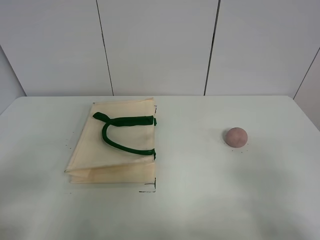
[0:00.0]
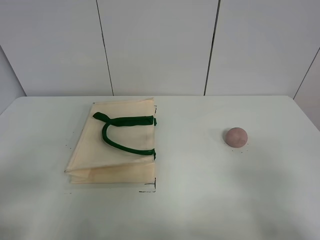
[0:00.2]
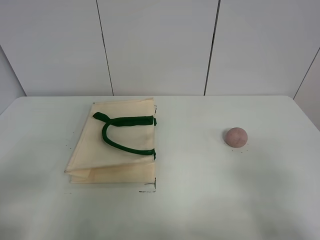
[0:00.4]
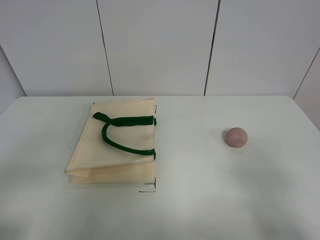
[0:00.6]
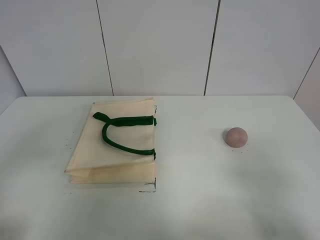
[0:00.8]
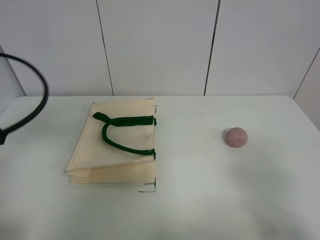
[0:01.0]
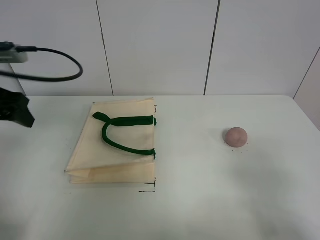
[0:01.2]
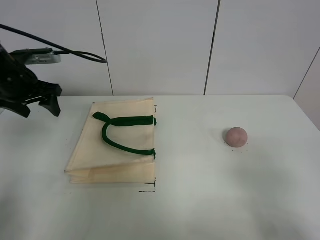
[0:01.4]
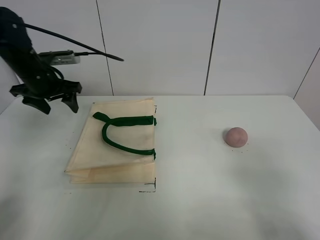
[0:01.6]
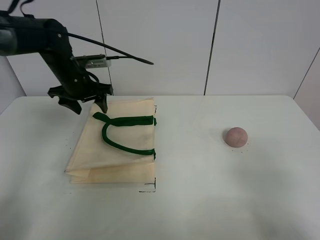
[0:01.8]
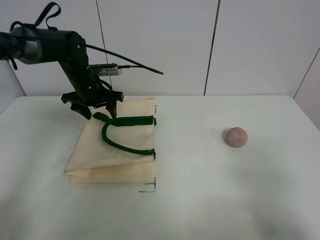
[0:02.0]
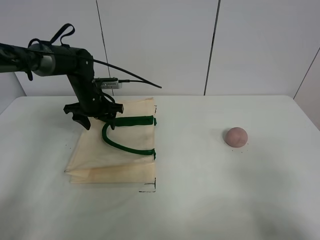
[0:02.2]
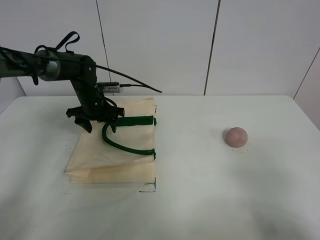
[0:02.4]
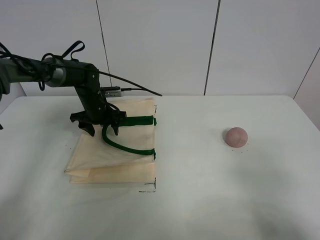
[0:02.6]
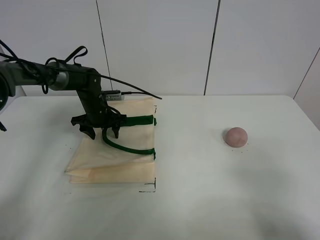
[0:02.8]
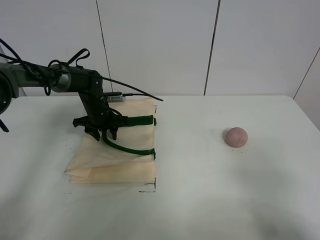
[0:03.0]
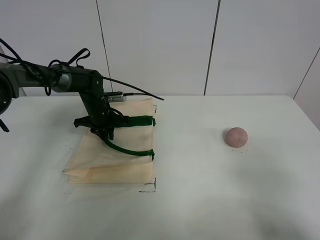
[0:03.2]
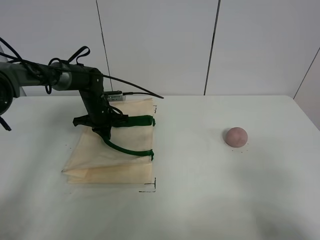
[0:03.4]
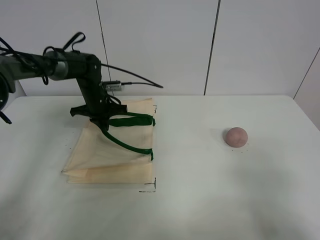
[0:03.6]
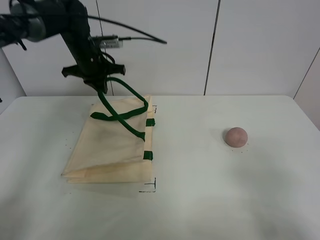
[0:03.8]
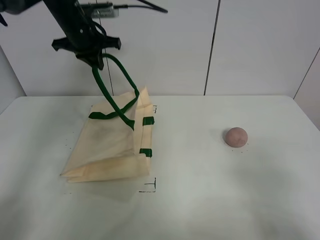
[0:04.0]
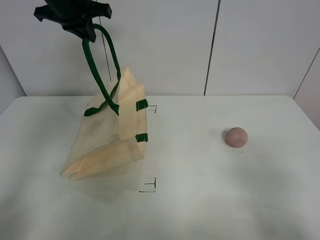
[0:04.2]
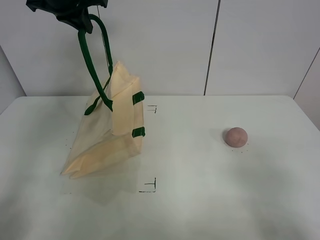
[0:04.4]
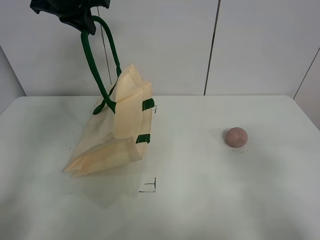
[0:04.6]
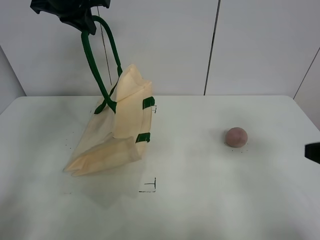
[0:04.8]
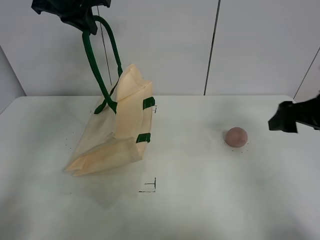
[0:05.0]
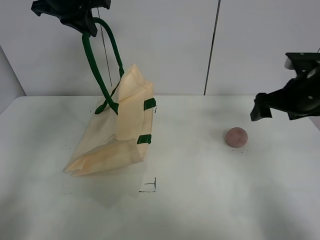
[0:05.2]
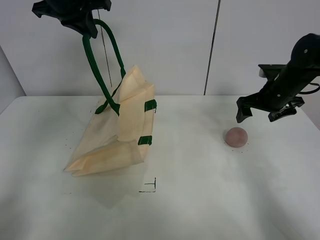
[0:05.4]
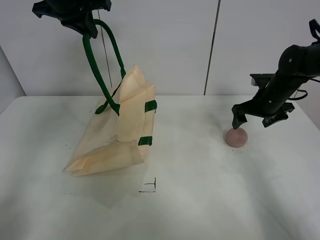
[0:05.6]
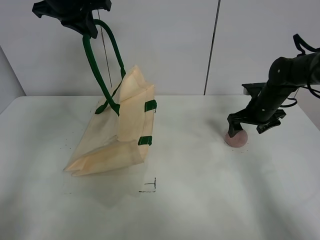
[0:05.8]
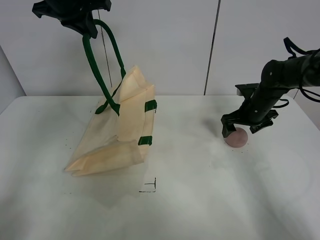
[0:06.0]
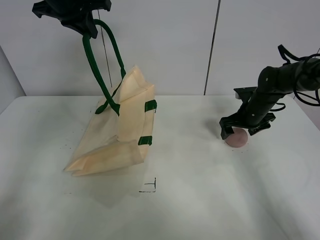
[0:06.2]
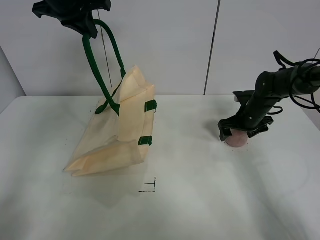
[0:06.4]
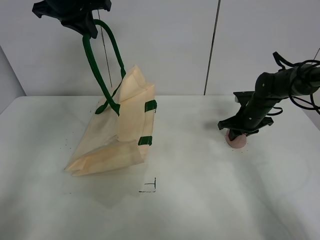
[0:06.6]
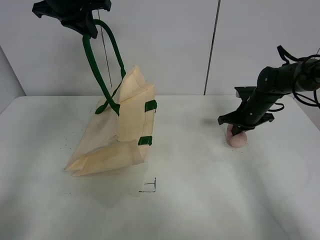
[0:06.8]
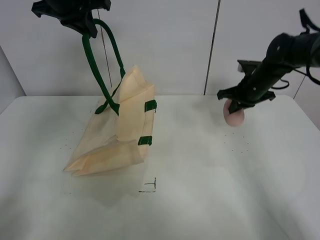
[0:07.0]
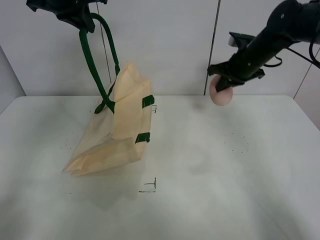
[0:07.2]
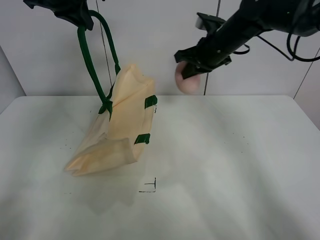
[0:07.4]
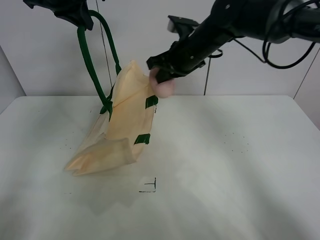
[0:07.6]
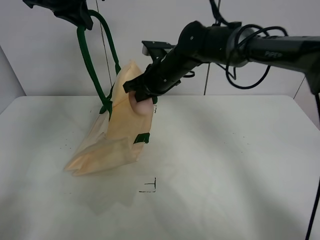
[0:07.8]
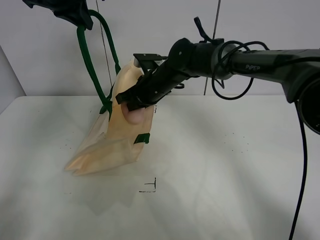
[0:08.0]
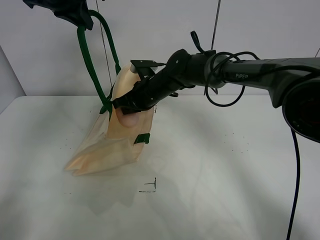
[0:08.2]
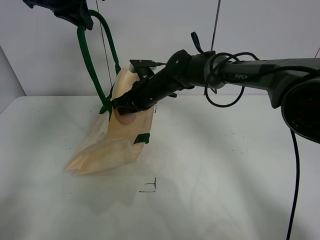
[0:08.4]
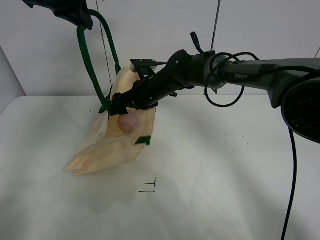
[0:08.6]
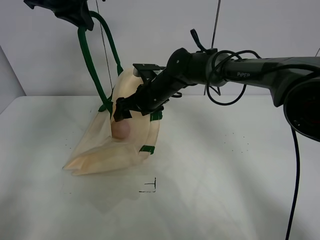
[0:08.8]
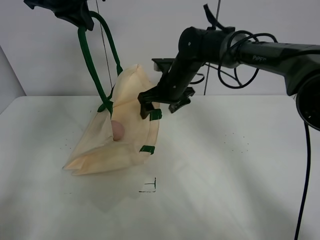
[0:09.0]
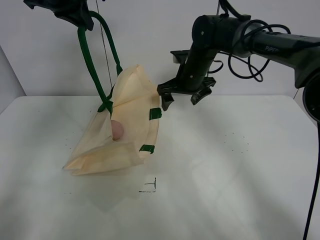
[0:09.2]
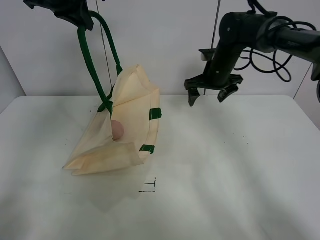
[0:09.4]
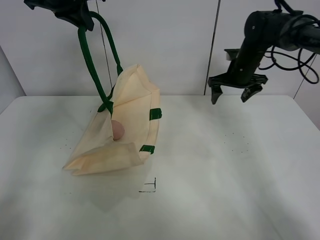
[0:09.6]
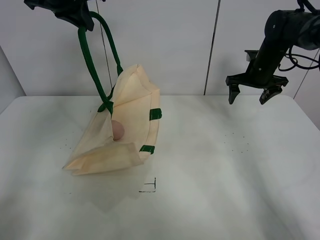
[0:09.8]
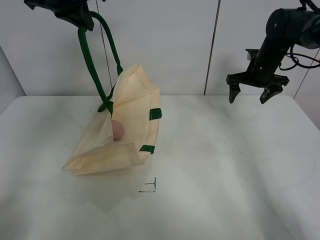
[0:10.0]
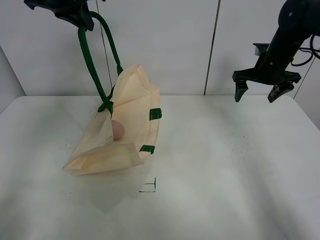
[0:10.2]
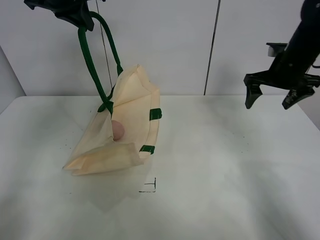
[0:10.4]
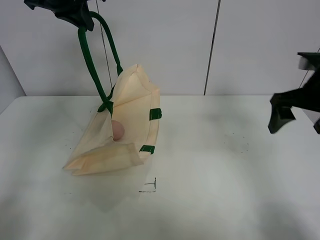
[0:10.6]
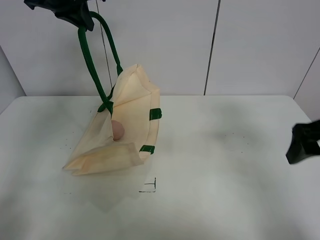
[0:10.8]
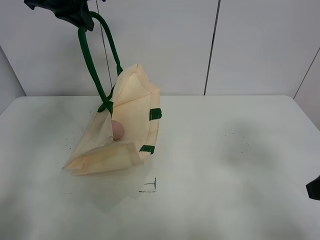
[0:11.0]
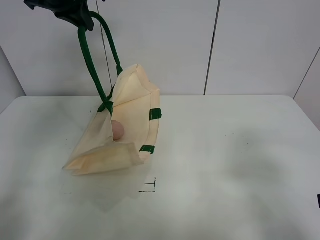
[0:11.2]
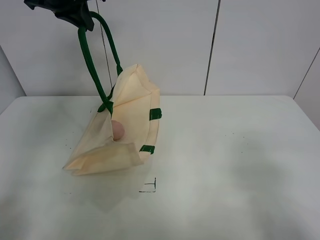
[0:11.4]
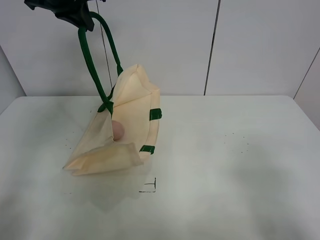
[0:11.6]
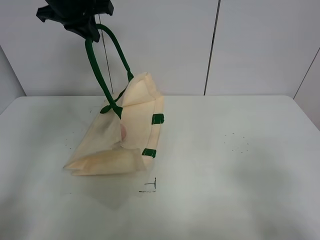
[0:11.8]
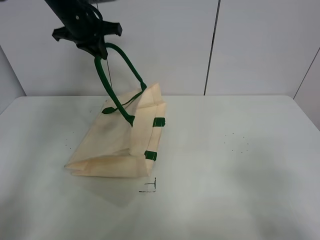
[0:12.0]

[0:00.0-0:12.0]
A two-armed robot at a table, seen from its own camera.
Task of the whole recording: open the white linen bag and put the peach in the bag.
Step, 0:00.0 to 0:04.2: Lift the handbag with left gripper.
Step, 0:04.4 to 0:06.8: Grasp the peach with right gripper.
Step, 0:07.0 to 0:09.0: Place the peach in the handbag with right gripper.
0:00.0 to 0:01.6: The left gripper travels forward by approximately 40 cm.
0:01.6 to 0:03.0: The left gripper is displaced downward and to the right by approximately 15 cm, and closes.
0:03.0 to 0:04.4: The left gripper goes roughly 30 cm upward, and closes.
0:04.4 to 0:06.0: The right gripper moves forward, roughly 40 cm.
0:06.0 to 0:07.6: The right gripper moves to the left and upward, about 25 cm, and closes its fingers.
0:07.6 to 0:09.0: The right gripper travels downward by about 5 cm, and opens.
0:09.0 to 0:10.4: The right gripper goes some 20 cm to the right.
0:10.4 to 0:12.0: The right gripper is displaced backward by approximately 35 cm. The left gripper heads downward, covering some 10 cm.

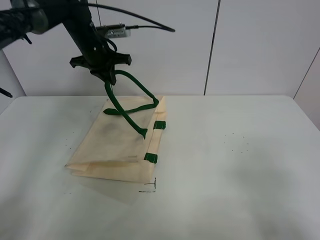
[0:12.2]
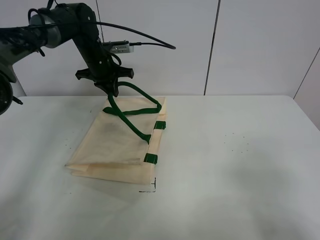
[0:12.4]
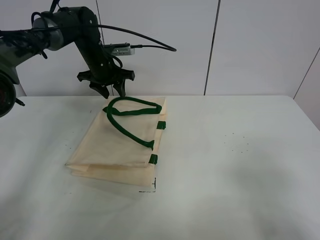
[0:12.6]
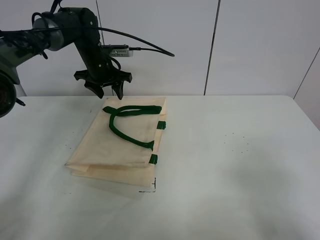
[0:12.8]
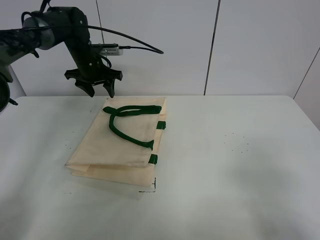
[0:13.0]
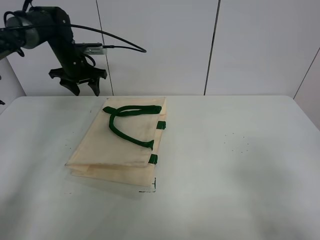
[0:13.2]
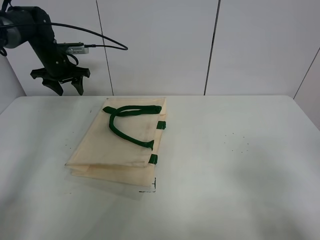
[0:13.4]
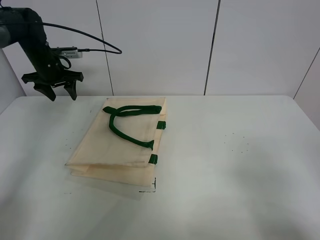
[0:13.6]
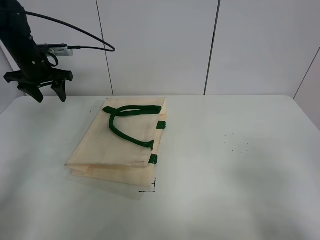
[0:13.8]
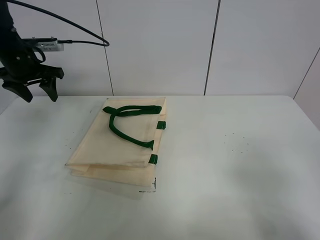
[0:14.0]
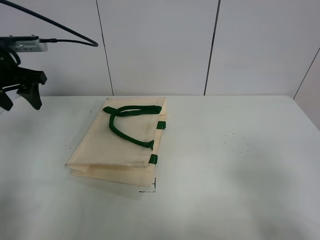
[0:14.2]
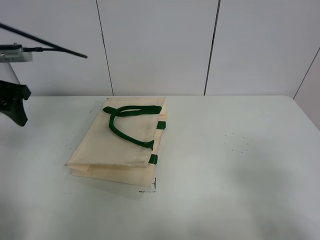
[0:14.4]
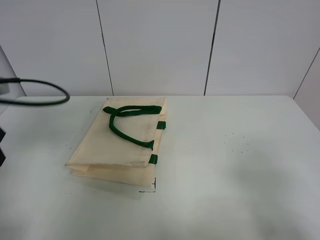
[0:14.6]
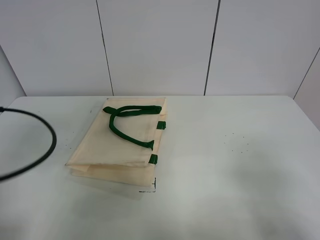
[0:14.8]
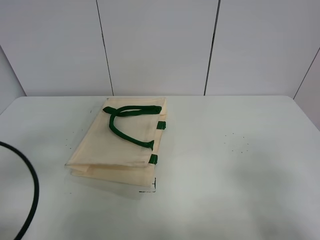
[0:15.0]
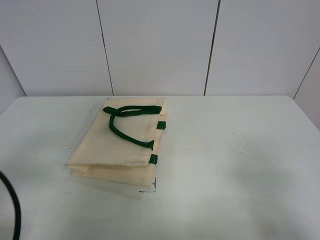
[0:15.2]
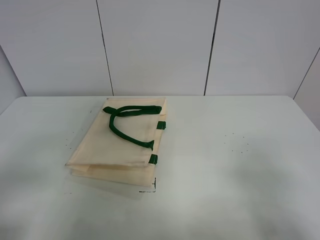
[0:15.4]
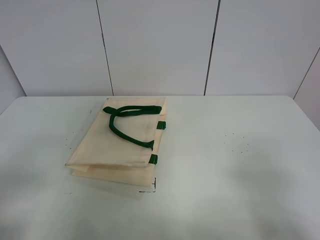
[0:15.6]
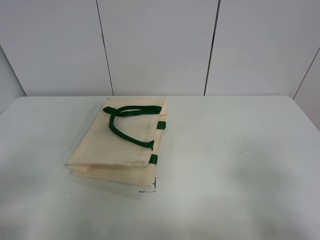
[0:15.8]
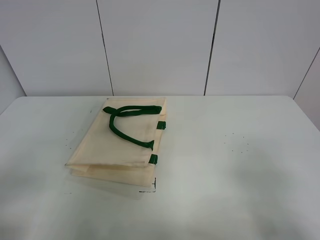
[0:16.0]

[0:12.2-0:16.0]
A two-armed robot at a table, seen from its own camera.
Task of the whole recording: open the white linen bag and put the peach in the bag.
0:12.2 to 0:13.4: The left gripper goes approximately 15 cm to the left, and opens up.
0:13.4 to 0:14.8: The left gripper moves backward, some 40 cm.
0:14.8 to 0:16.0: The left gripper heads backward, covering approximately 10 cm.

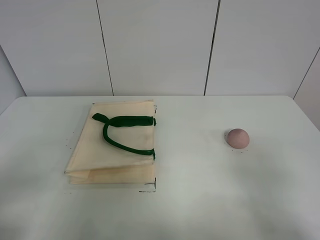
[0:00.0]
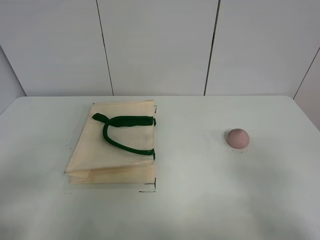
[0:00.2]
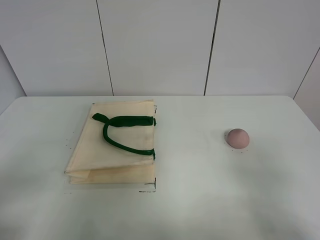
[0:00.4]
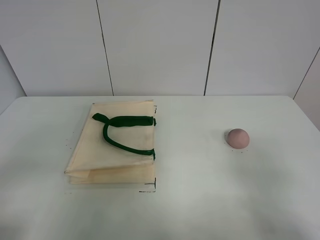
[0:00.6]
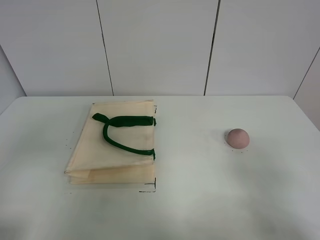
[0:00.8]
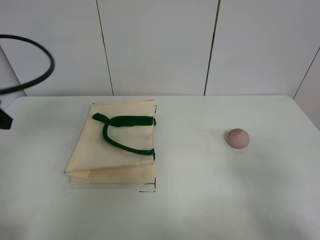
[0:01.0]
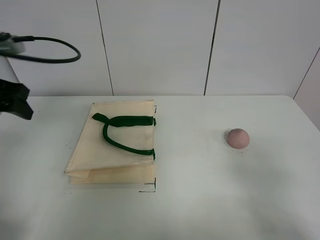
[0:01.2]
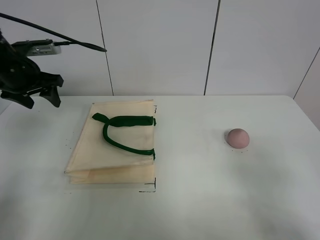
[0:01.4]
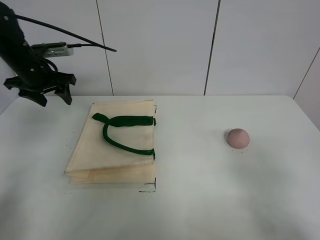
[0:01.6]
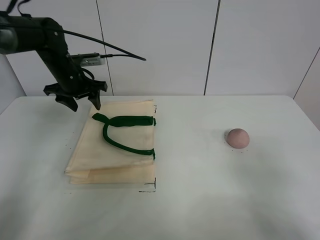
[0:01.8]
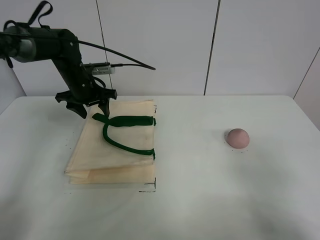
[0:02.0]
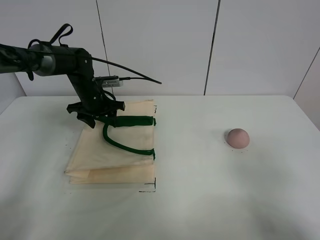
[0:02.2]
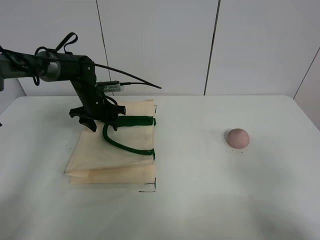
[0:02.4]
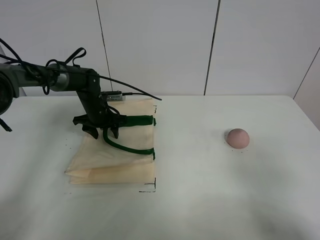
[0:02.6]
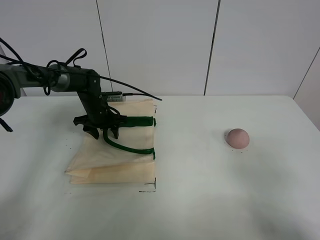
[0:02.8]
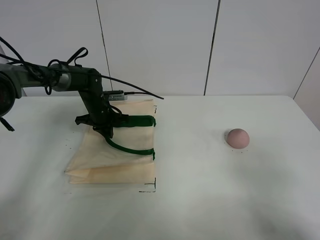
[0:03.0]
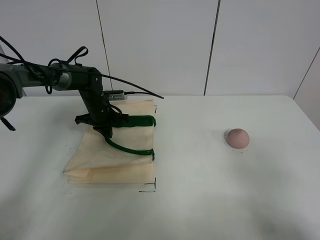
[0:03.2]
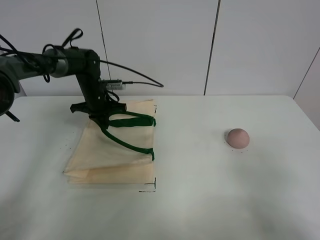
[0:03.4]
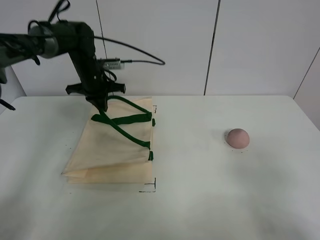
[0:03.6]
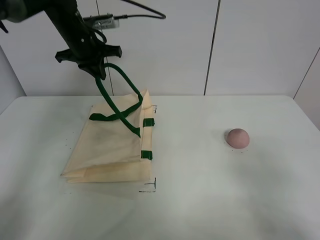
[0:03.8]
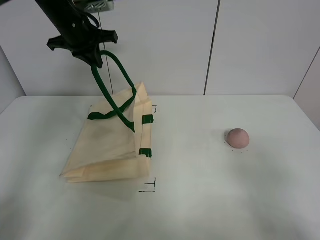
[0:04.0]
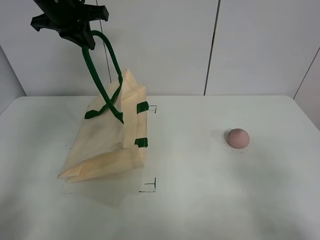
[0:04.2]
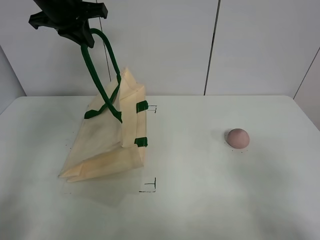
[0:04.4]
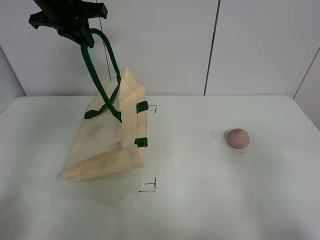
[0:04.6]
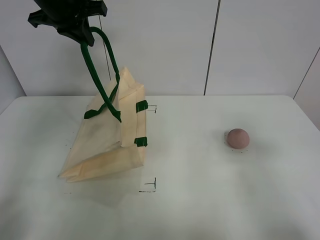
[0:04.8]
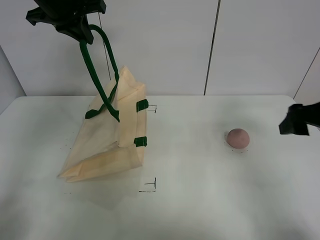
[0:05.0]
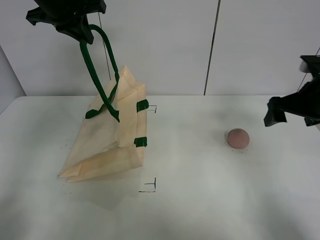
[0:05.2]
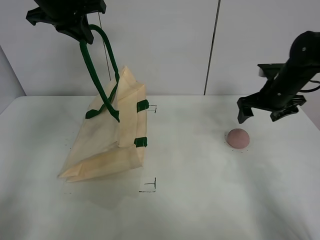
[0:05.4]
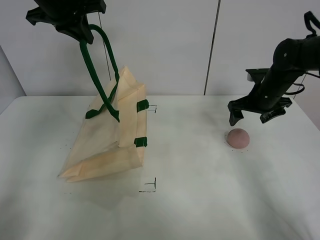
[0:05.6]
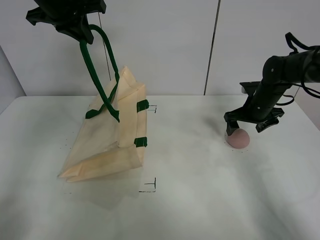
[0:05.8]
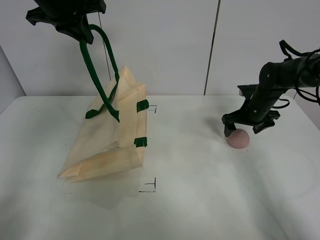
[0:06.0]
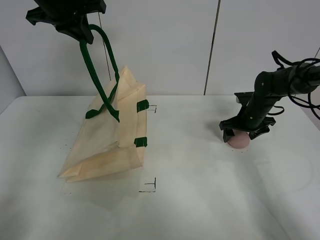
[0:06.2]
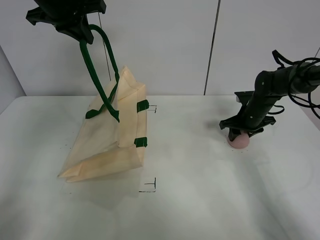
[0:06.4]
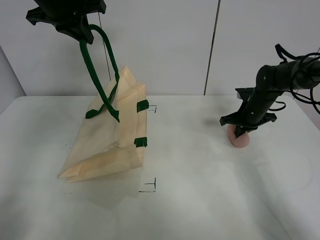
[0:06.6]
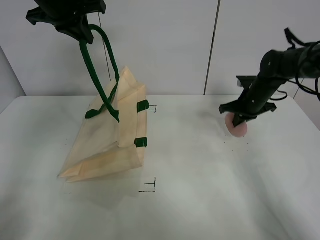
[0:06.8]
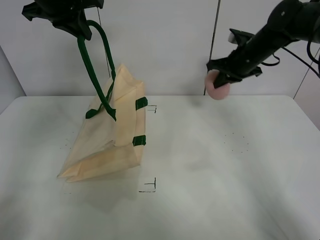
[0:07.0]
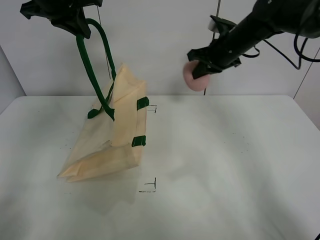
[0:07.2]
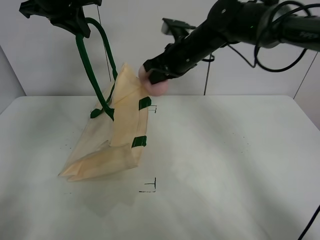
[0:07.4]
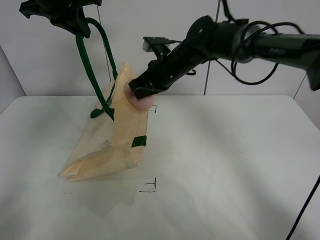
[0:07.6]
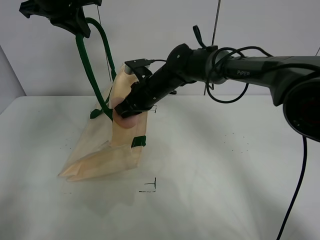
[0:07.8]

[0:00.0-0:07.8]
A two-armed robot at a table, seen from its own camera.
Task of the whole recording: open the white linen bag and put the peach in the bag.
Step, 0:00.0 to 0:04.4: Lift the handbag with left gripper.
Step, 0:04.6 to 0:06.6: Grasp the peach with right gripper.
0:01.6 to 0:03.2: The left gripper travels downward, to the right and forward by approximately 25 cm, and closes.
0:03.2 to 0:04.6: The left gripper shifts some 30 cm upward.
0:04.6 to 0:06.2: The right gripper is displaced forward and downward by approximately 40 cm.
0:06.2 to 0:07.8: The right gripper moves to the left, roughly 25 cm, and closes its fingers.
